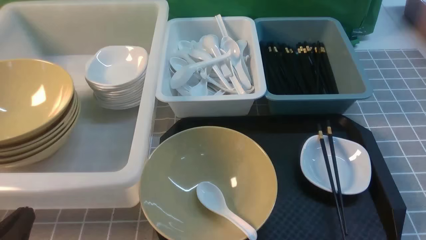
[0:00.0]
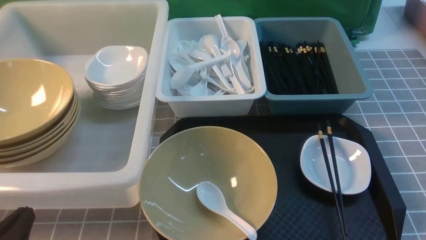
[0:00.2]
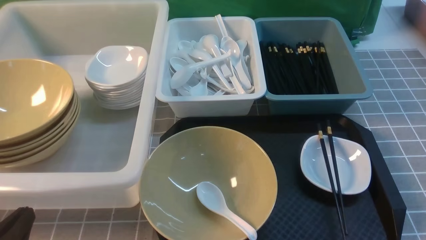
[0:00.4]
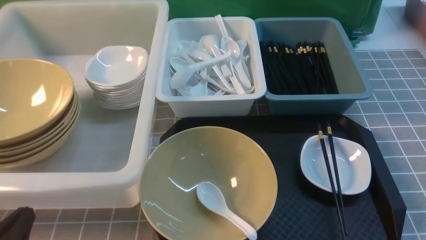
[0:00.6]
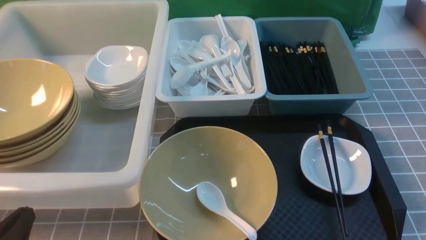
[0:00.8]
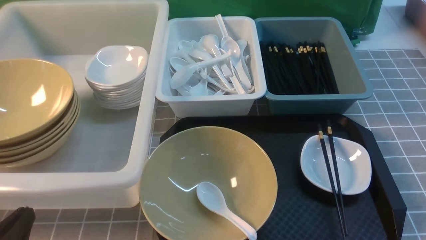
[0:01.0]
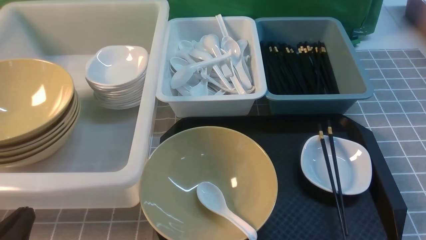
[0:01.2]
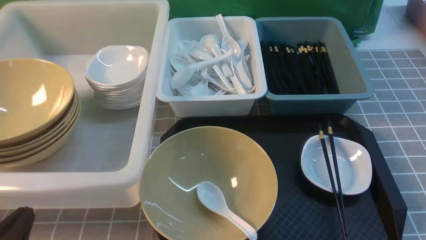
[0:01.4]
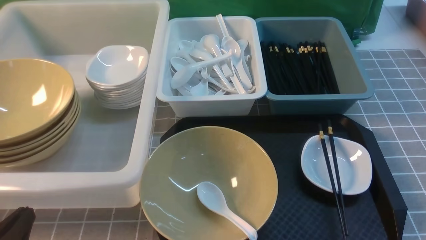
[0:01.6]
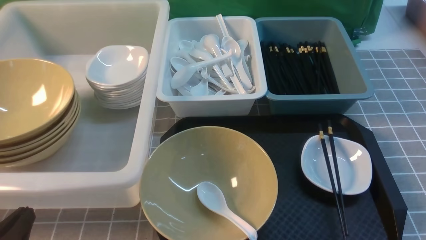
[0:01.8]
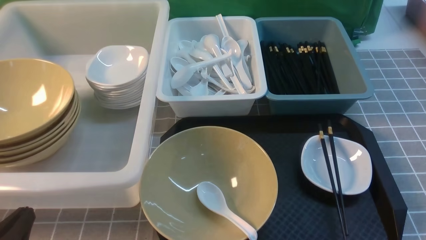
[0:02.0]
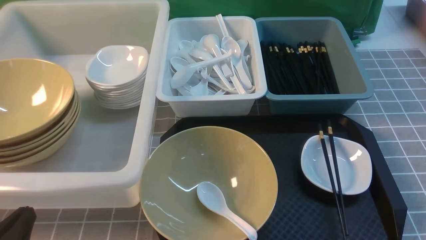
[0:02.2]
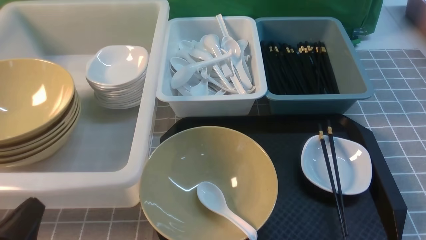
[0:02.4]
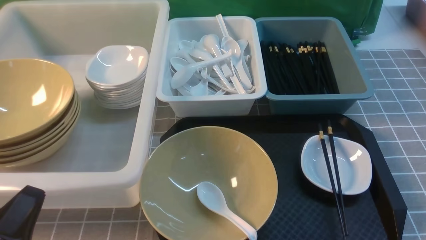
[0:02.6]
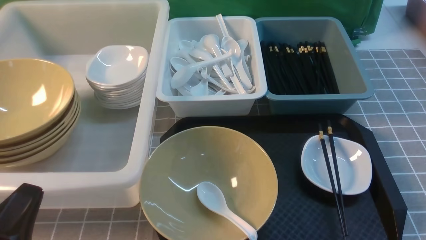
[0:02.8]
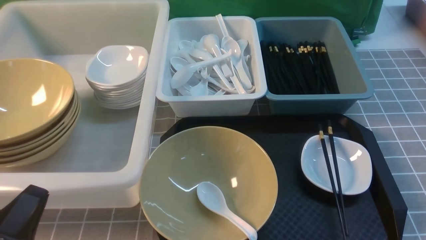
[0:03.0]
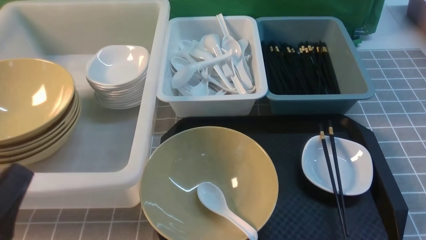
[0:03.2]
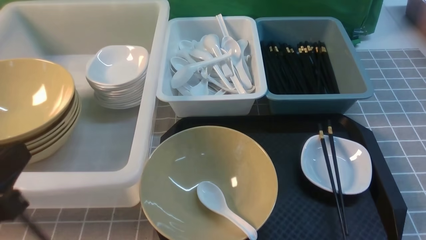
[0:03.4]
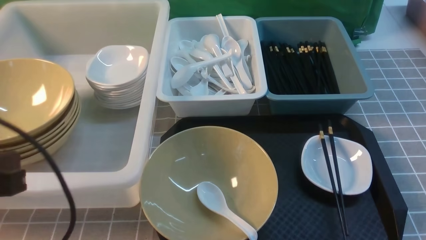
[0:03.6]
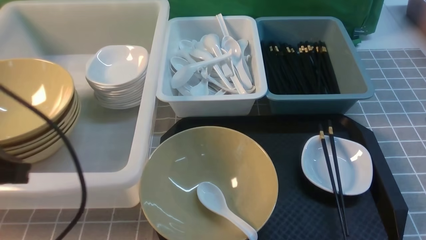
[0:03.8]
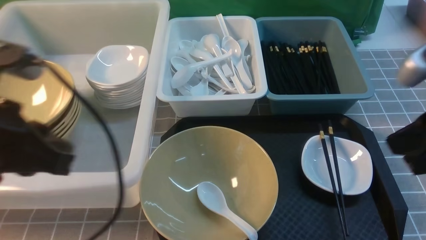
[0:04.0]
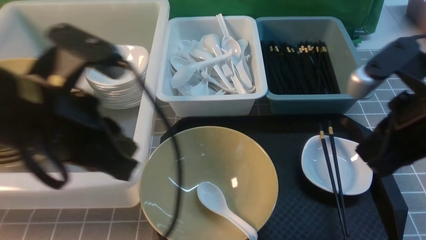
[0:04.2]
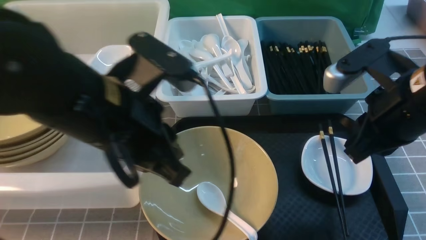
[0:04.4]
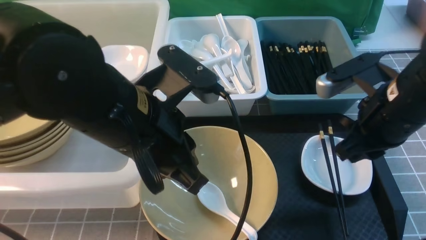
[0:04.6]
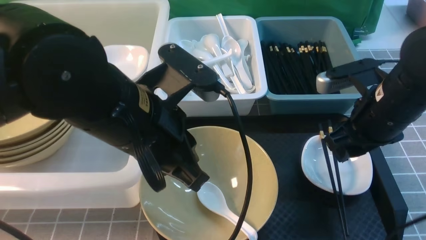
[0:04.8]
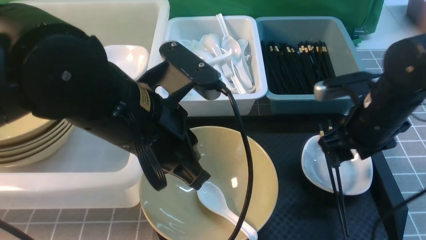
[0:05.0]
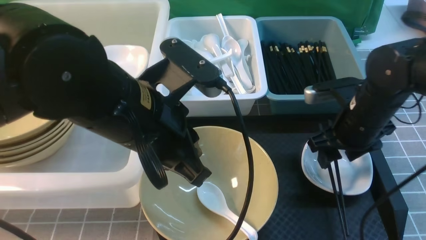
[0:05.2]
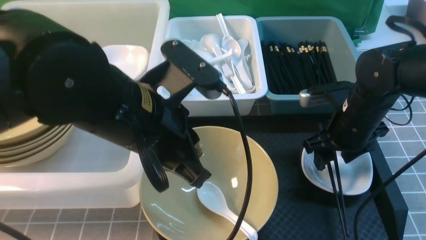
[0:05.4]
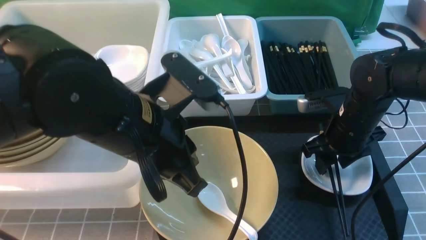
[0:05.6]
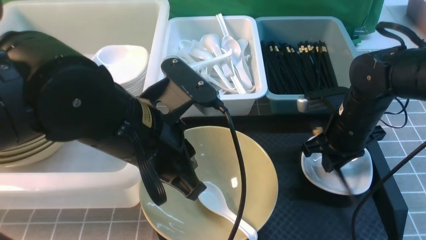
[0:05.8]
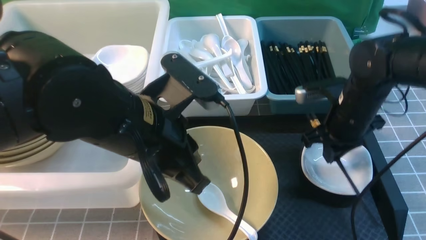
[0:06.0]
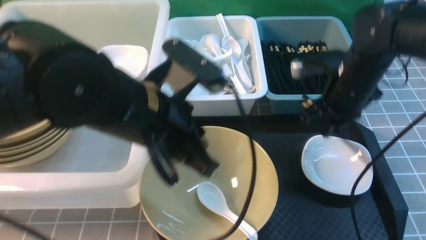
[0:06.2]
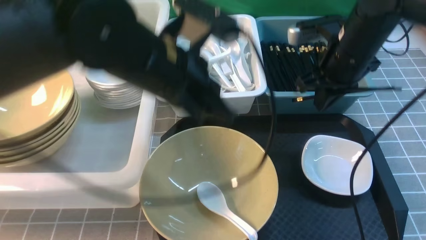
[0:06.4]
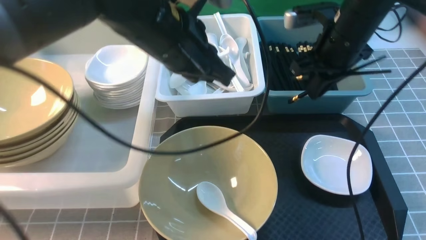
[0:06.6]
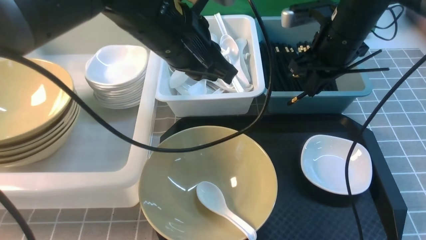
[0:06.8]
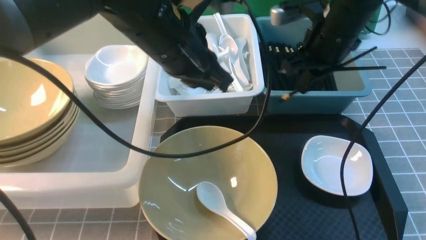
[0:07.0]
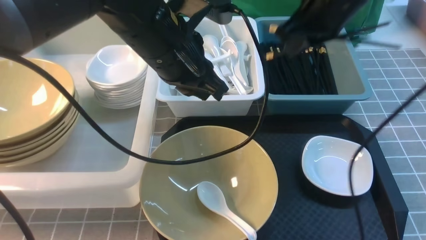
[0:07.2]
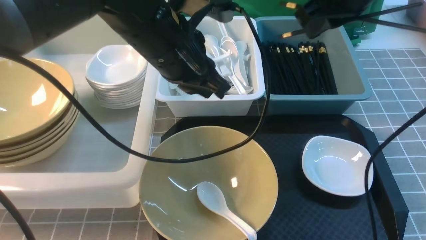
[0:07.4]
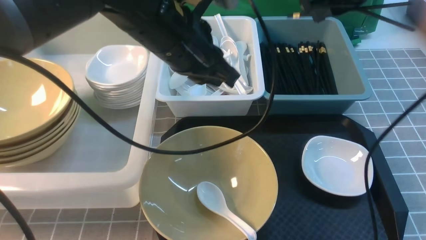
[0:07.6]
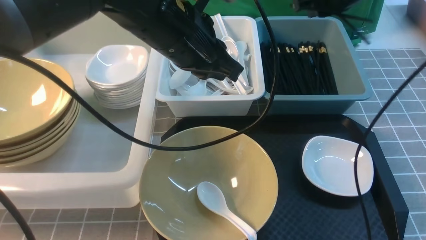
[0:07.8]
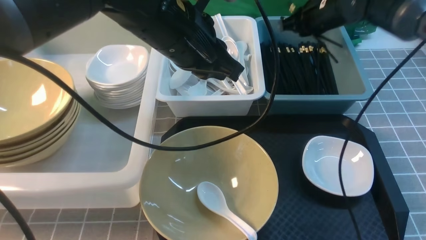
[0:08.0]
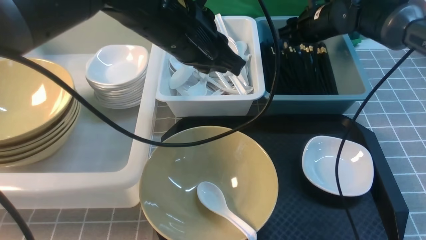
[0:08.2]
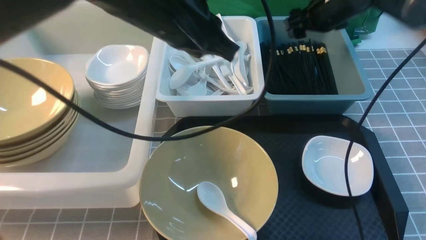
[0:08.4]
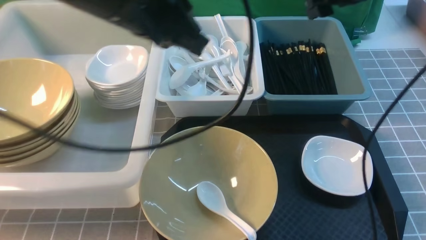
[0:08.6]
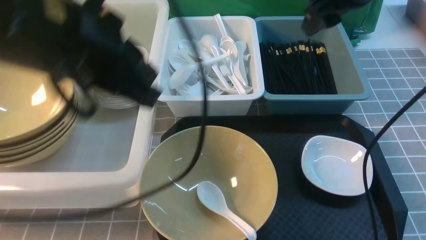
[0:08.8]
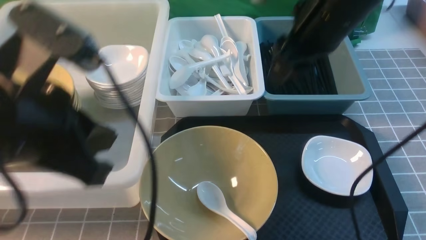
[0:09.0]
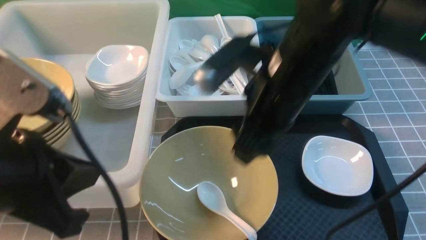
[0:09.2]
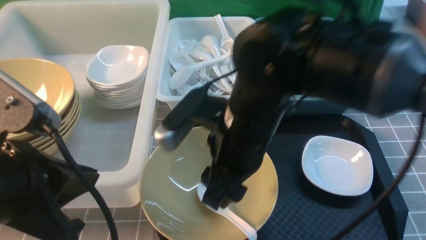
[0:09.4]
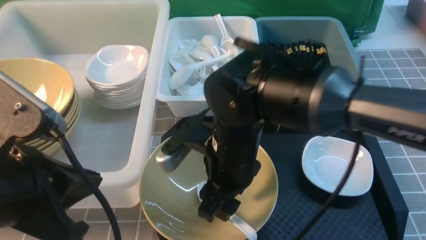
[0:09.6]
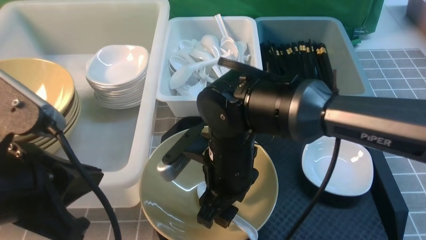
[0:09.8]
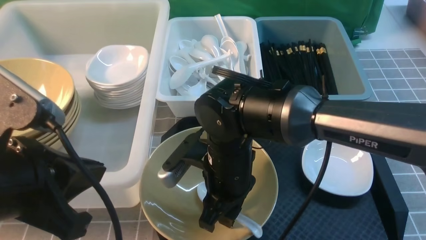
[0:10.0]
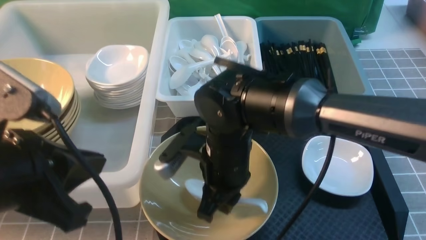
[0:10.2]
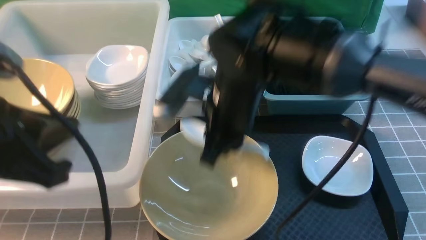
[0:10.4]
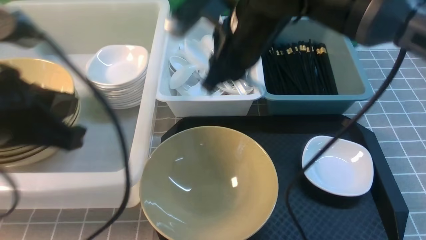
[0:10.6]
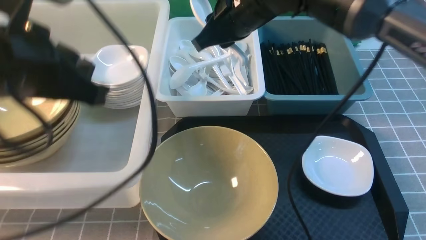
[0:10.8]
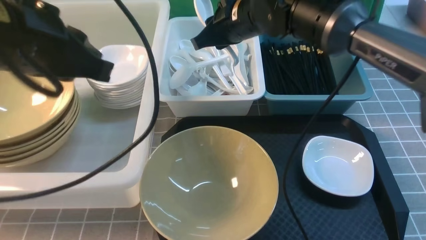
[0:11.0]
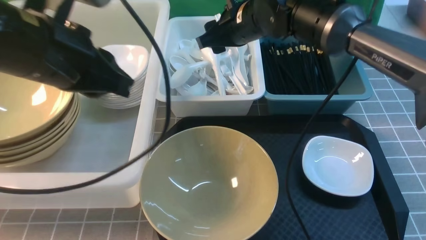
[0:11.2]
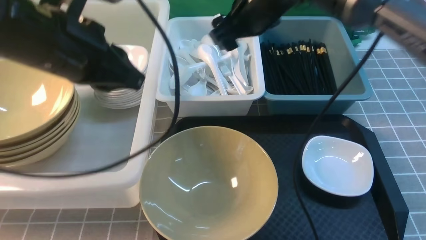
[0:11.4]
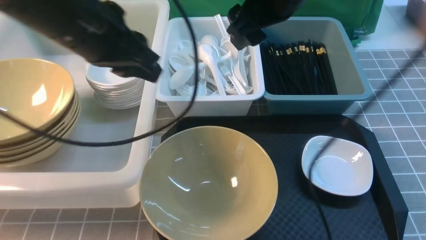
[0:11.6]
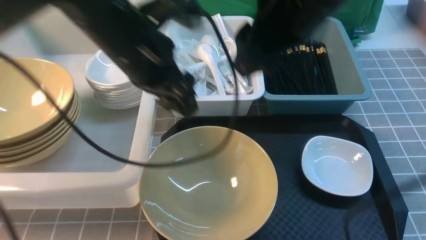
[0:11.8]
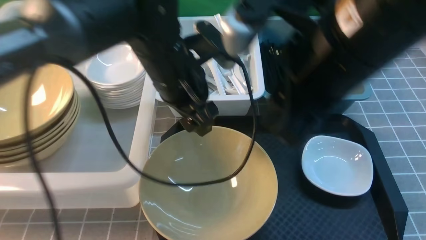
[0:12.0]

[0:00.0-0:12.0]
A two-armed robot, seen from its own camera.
Task of the whole recording: on grey table put chopsticks spoon bowls plates into blue grey white boxes.
Step, 0:00.0 to 0:06.0: use the right arm to grab the chopsticks.
Step, 0:06.2 to 0:08.2: use the right arm to put the chopsticks into the small storage box on the right.
Step, 0:08.6 to 0:10.4: use the right arm to grab the soup spoon in the middle.
Step, 0:10.6 to 0:11.4: use the right arm to put the soup spoon into the small storage box in the middle.
0:03.0 to 0:04.4: The left gripper moves upward, forward and to the right, some 20 cm, while the right gripper heads forward, upward and to the left, covering approximately 25 cm.
0:04.4 to 0:06.0: The left gripper moves some 5 cm. The right gripper moves downward and forward, approximately 15 cm, and opens, then closes again.
0:06.0 to 0:07.6: The right gripper moves upward, some 20 cm; the left gripper travels forward by about 10 cm.
0:07.6 to 0:09.0: The left gripper is displaced backward and to the left by some 15 cm. The right gripper moves roughly 10 cm forward and comes back, and opens.
0:09.0 to 0:10.4: The right gripper travels to the left, downward and backward by approximately 20 cm, and closes up, while the left gripper changes place by roughly 5 cm.
0:10.4 to 0:12.0: The right gripper heads upward and to the right, covering roughly 15 cm, goes forward and returns, approximately 15 cm each way, and opens up. The left gripper goes about 20 cm forward and to the right, and opens its fingers.

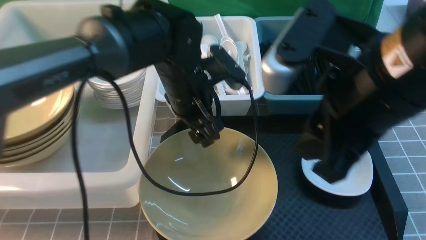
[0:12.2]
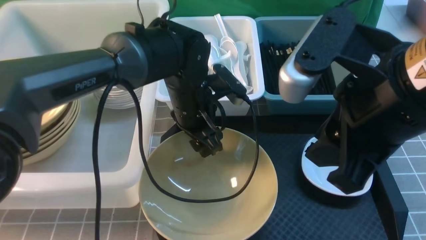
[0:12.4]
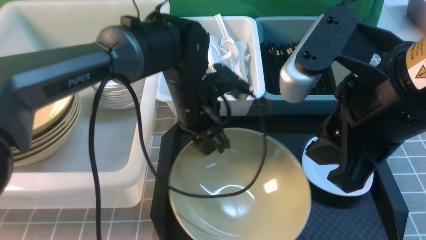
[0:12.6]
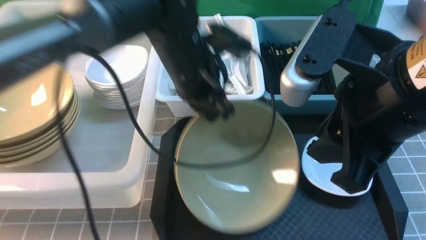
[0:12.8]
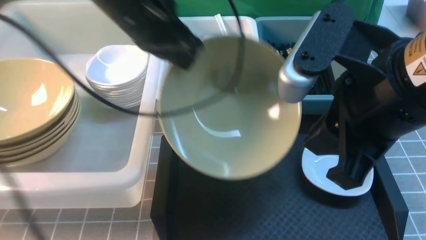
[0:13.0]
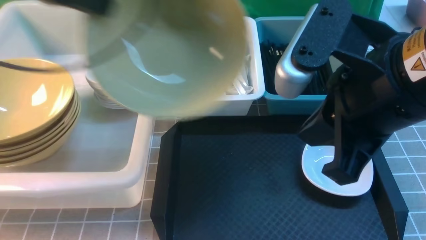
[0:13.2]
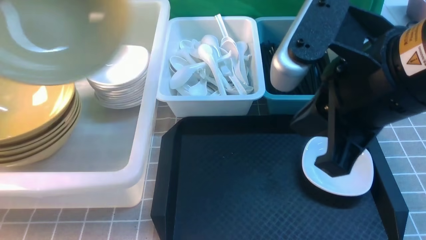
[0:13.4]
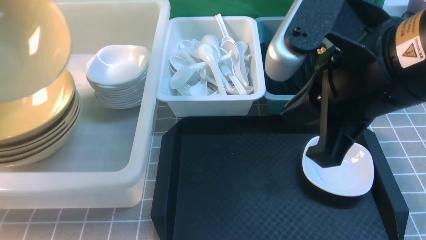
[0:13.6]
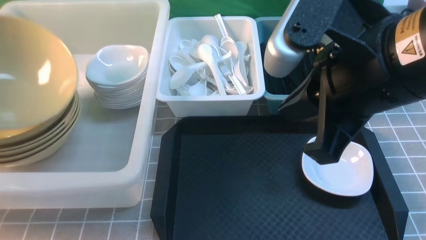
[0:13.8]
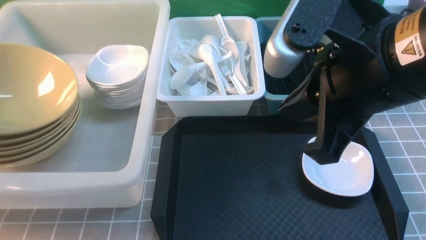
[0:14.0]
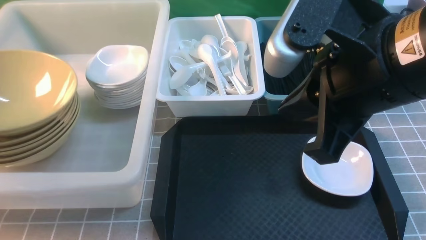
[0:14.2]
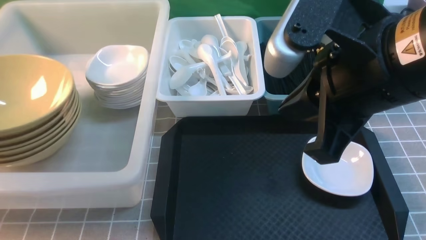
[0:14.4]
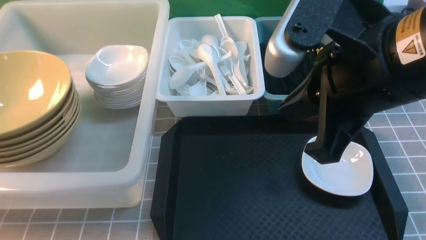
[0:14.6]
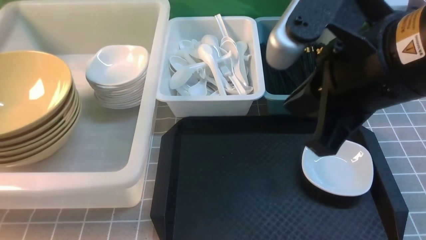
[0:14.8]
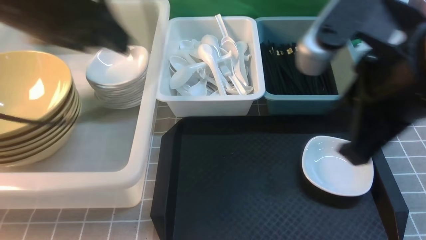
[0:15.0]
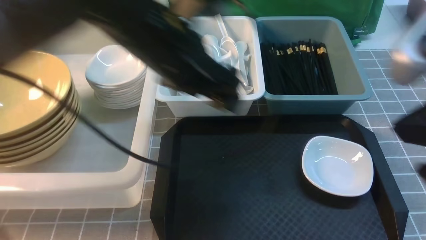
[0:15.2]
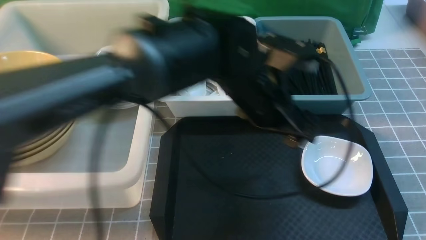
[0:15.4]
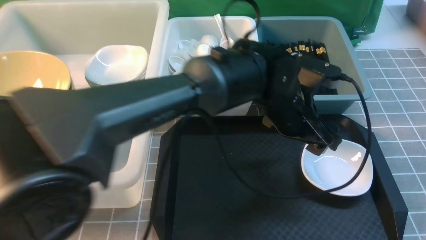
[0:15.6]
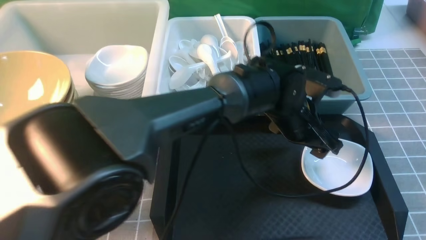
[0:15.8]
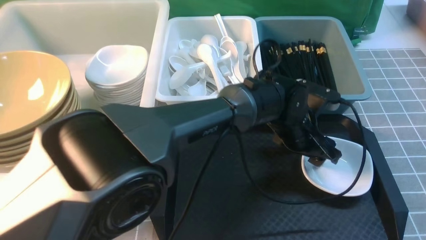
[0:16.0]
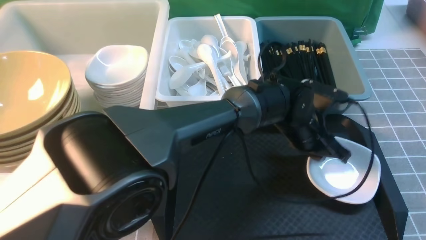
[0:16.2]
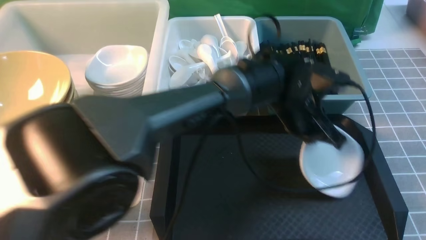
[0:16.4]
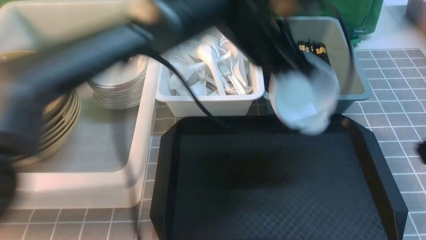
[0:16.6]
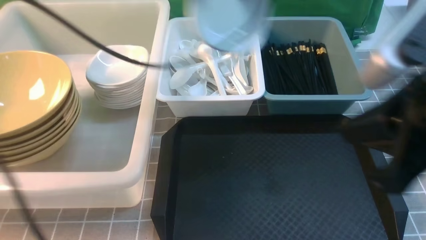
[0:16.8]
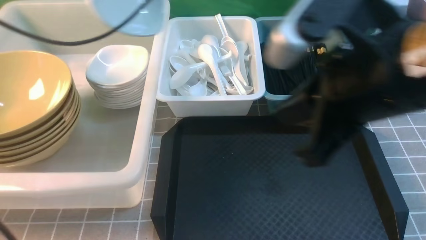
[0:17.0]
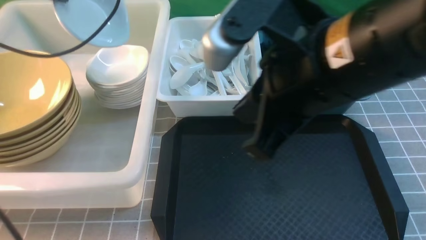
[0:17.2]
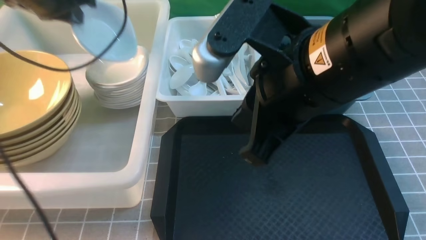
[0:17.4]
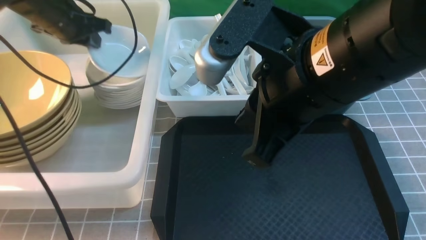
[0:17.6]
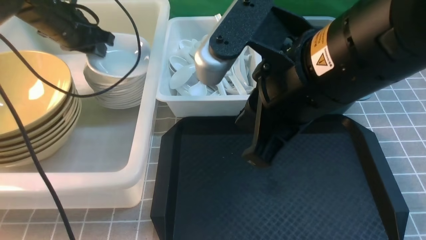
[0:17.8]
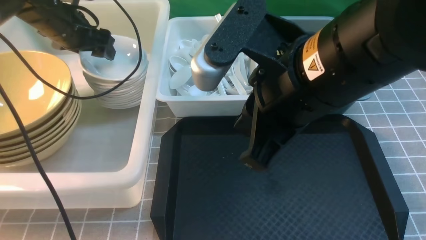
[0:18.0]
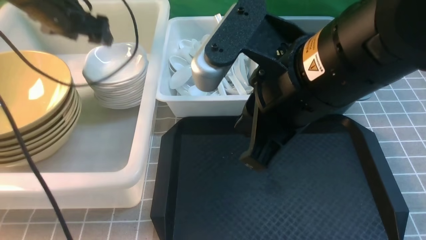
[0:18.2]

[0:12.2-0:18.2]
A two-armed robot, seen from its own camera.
Task of the whole recording: on grey table put chopsticks spoon bowls plates into blue grey white boxes.
Step, 0:13.0 to 0:14.8: use the left arm to put the noodle bowl into the large storage box on the left.
Step, 0:15.0 to 0:16.4: use the left arm to grab the plate.
0:12.2 to 0:13.8: The right gripper closes up. The left gripper goes about 35 cm to the left, and closes up.
0:13.8 to 0:15.2: The right gripper moves to the right, about 5 cm. The left gripper is displaced to the right by approximately 30 cm, and opens.
0:15.2 to 0:16.6: The left gripper heads to the right and downward, covering some 15 cm, and closes. Meanwhile the right gripper changes place by some 5 cm.
0:16.6 to 0:18.2: The left gripper heads to the left, covering approximately 30 cm, and opens; the right gripper goes approximately 20 cm to the left and forward.
